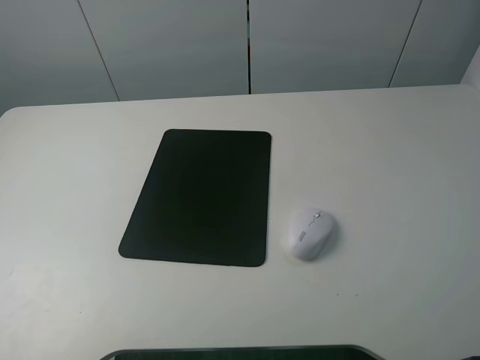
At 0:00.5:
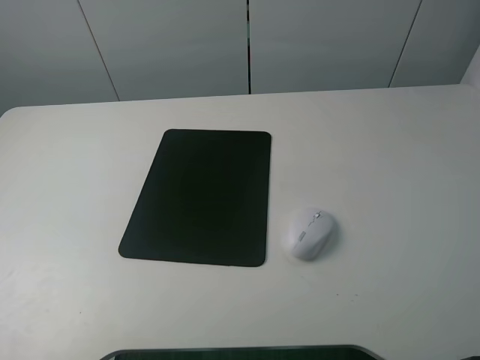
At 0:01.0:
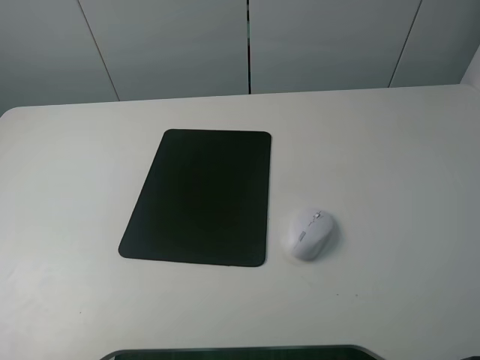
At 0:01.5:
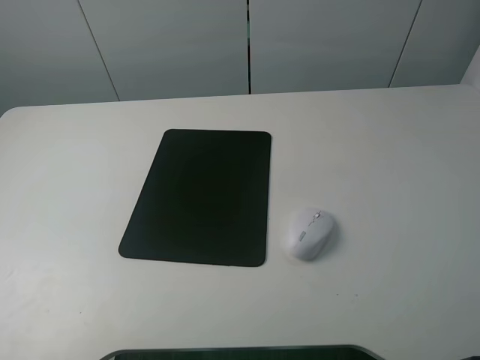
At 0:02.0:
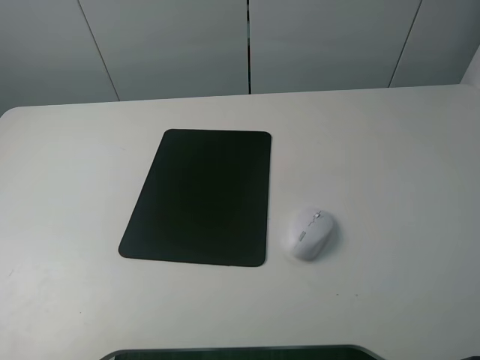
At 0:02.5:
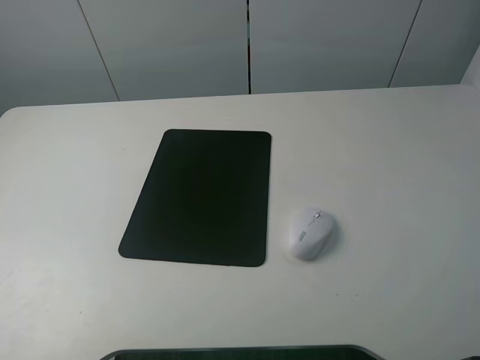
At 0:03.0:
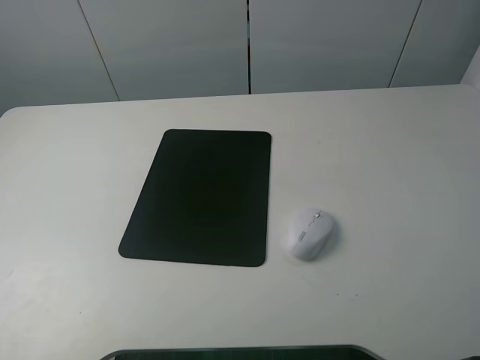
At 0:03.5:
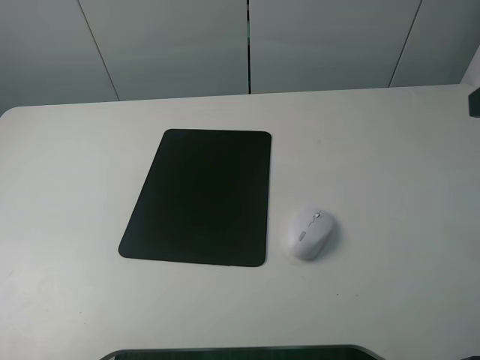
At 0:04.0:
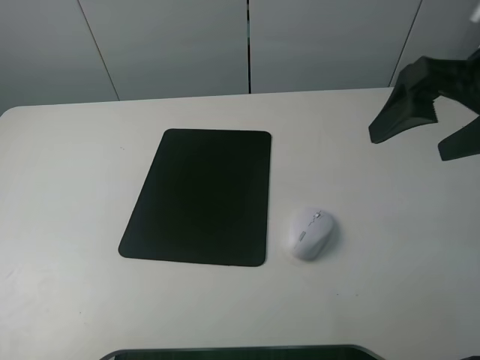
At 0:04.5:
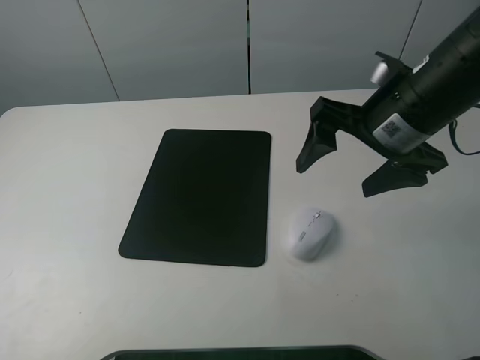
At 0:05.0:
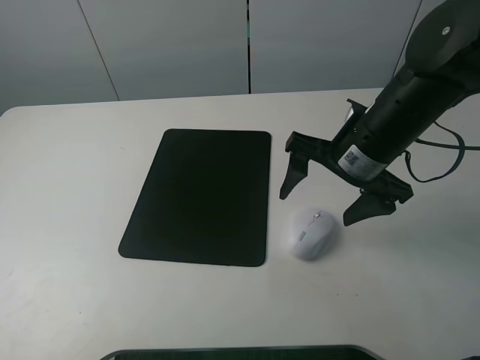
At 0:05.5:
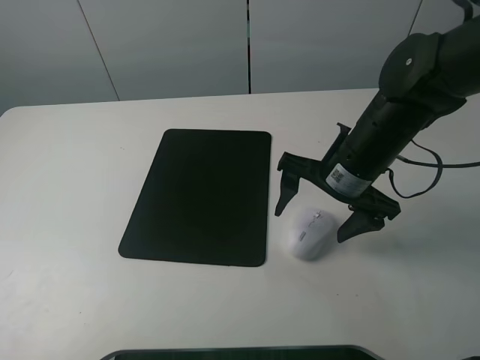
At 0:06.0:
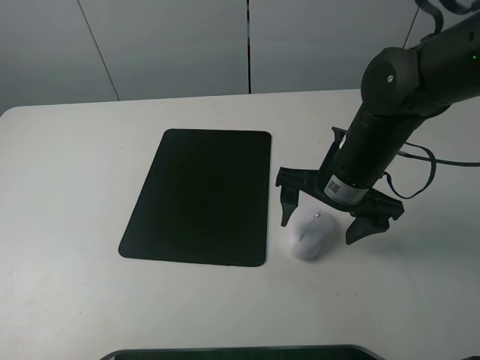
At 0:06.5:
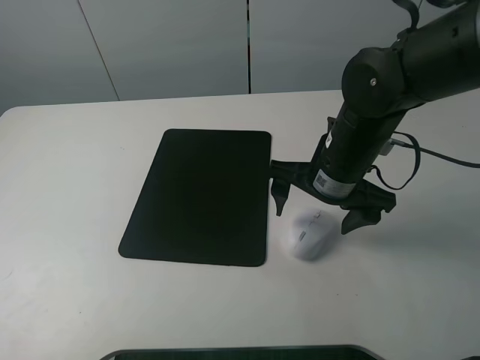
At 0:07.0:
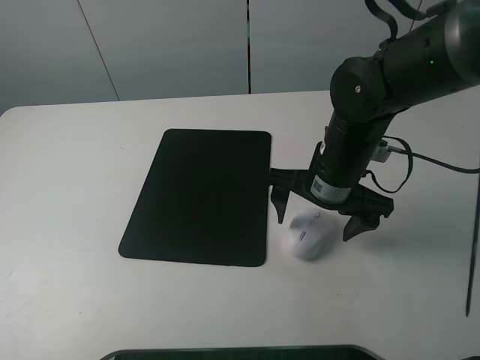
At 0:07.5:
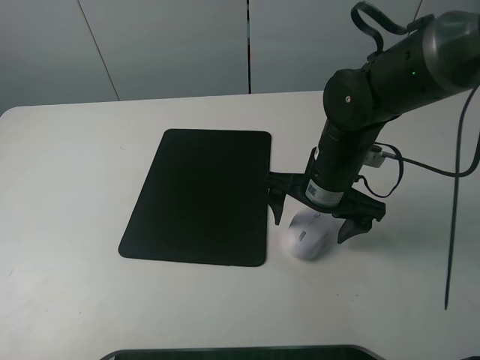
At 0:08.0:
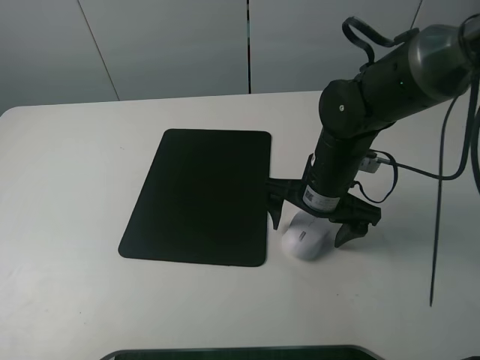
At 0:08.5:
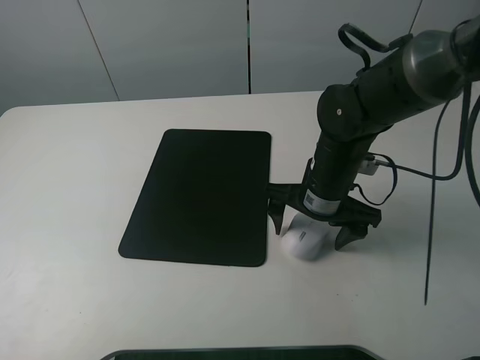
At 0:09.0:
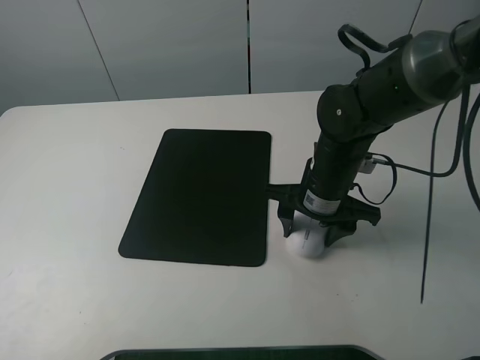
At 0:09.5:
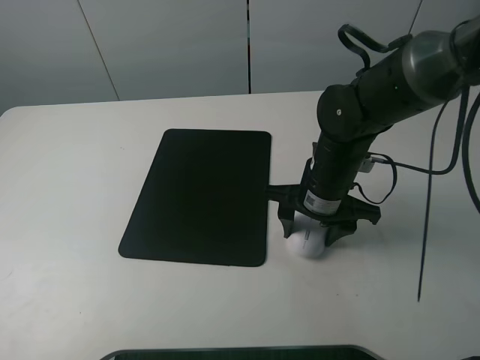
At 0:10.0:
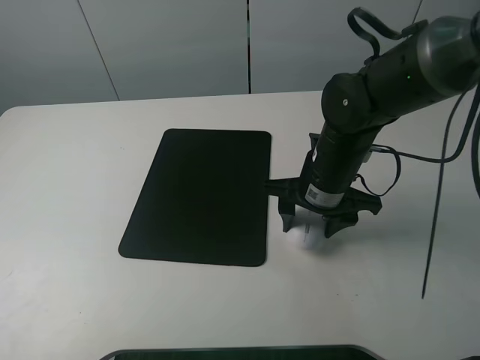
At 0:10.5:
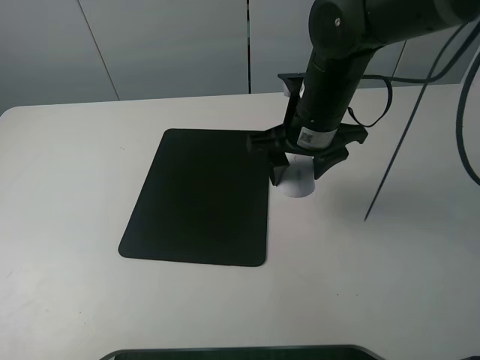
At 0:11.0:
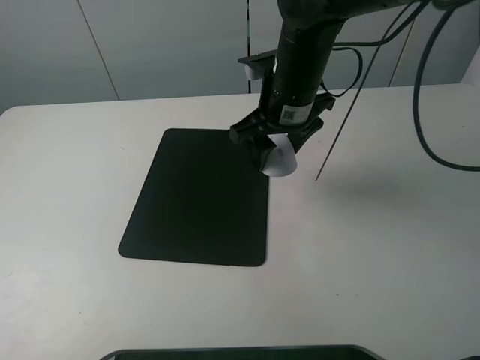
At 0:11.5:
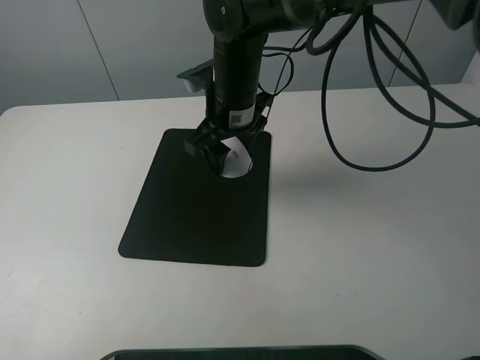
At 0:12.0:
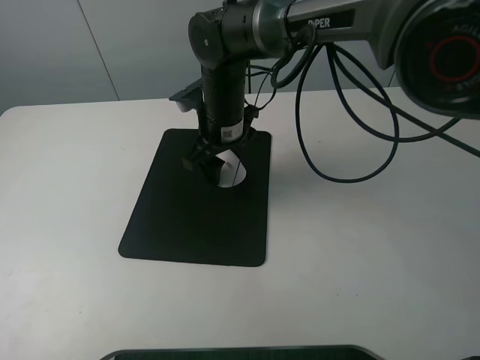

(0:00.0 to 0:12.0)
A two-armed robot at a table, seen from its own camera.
Step, 0:00.0 - 0:09.5: Grasp the mouse with the right gripper.
0:00.0 - 0:02.0: Both grippers stay about where they are.
0:02.0 - 0:04.0: The right gripper travels forward by some 20 cm.
0:04.0 - 0:06.0: The right gripper shifts roughly 15 cm downward and to the left.
0:06.0 - 0:08.0: The grippers make only small movements.
0:08.0 - 0:10.0: The right gripper closes its fingers.
0:10.0 - 0:12.0: The right gripper travels to the left and forward by some 15 cm.

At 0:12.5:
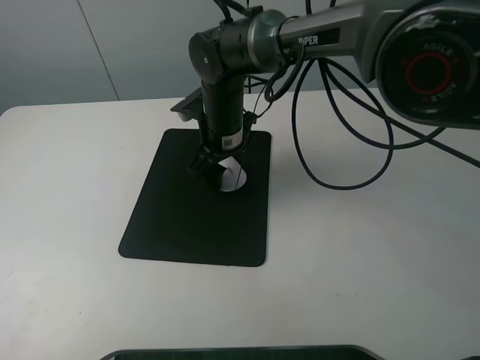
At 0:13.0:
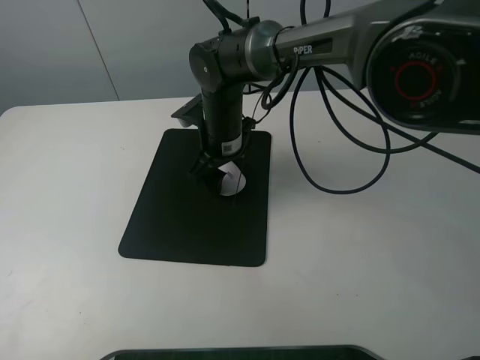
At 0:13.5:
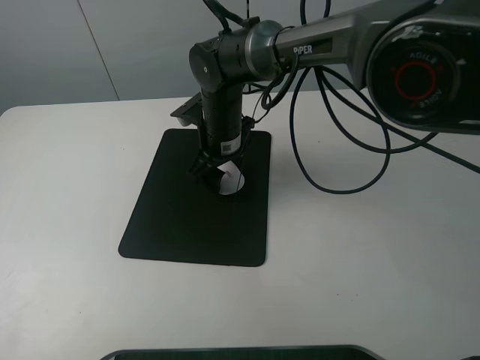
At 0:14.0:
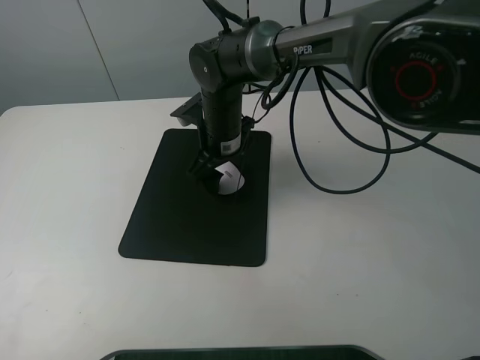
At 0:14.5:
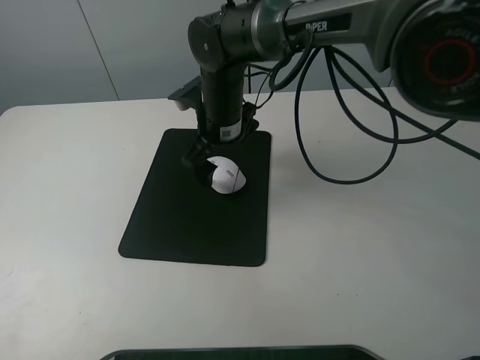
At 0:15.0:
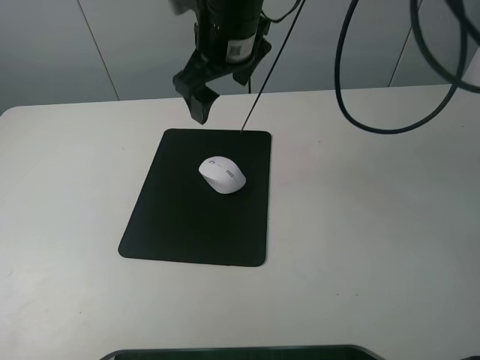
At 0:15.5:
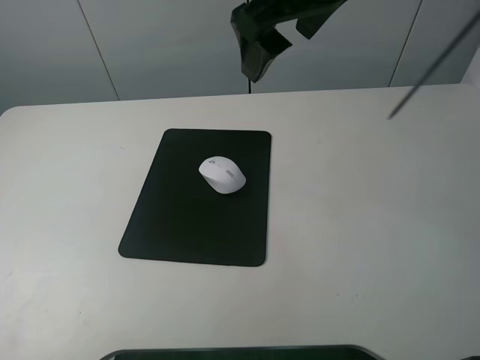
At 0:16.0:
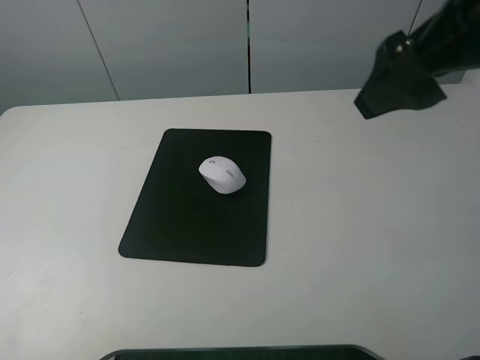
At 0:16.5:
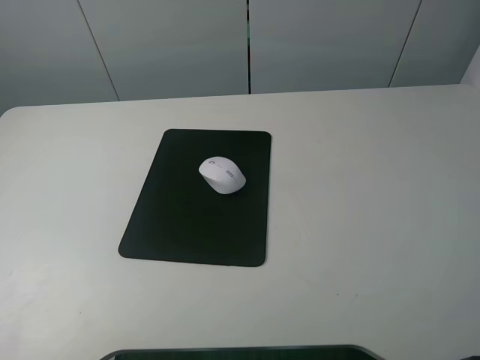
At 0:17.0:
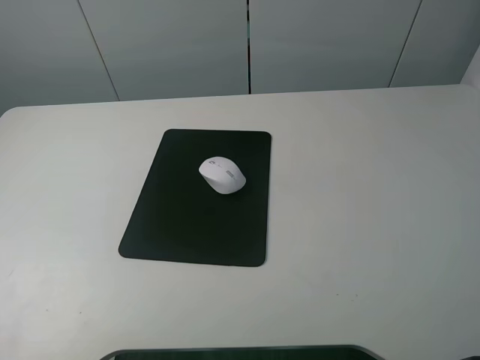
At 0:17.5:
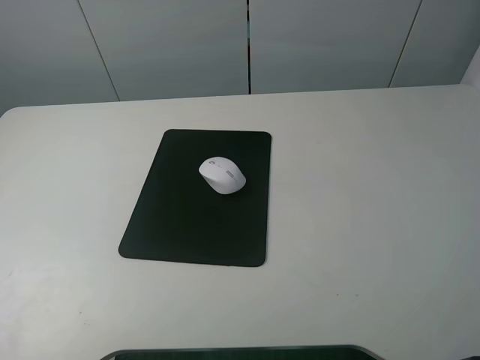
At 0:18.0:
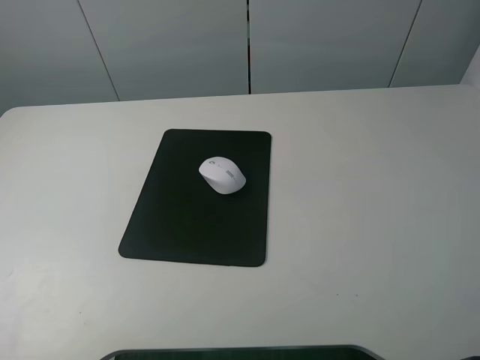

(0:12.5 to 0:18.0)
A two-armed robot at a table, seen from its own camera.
0:12.5 - 0:14.5: The right gripper opens.
0:14.5 - 0:16.0: The right gripper is displaced to the right, upward and backward by roughly 35 cm.
0:16.0 - 0:18.0: The right gripper heads backward and to the right, covering some 20 cm.
